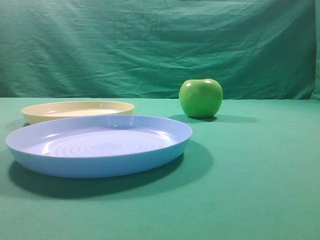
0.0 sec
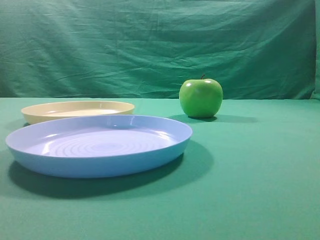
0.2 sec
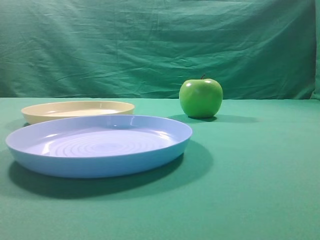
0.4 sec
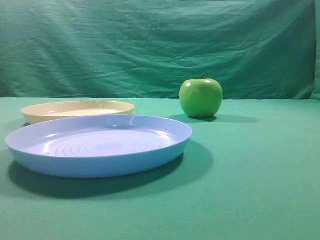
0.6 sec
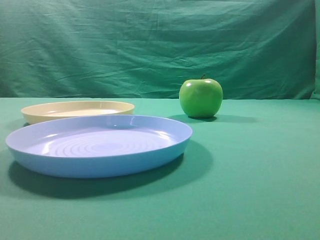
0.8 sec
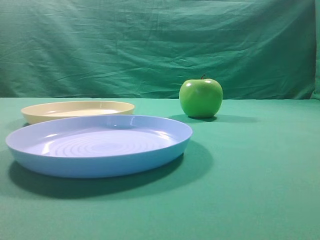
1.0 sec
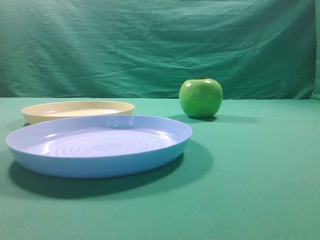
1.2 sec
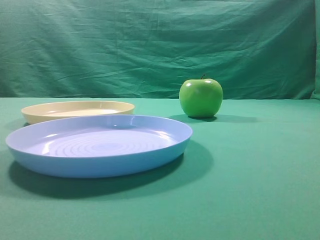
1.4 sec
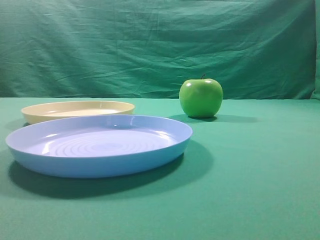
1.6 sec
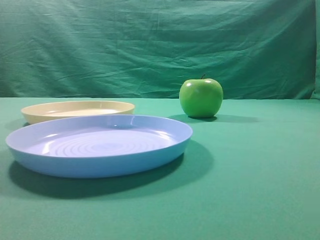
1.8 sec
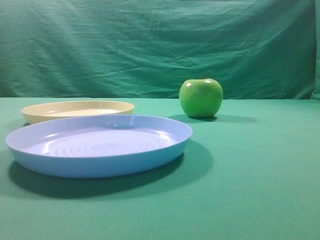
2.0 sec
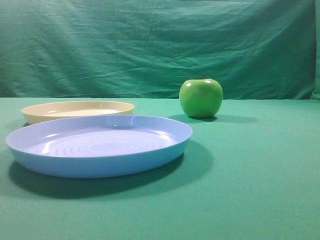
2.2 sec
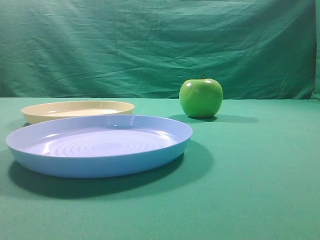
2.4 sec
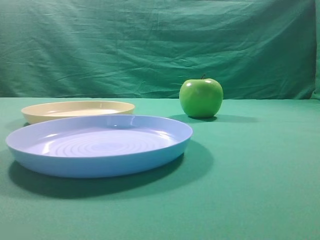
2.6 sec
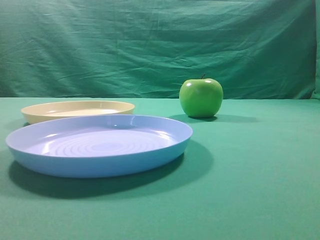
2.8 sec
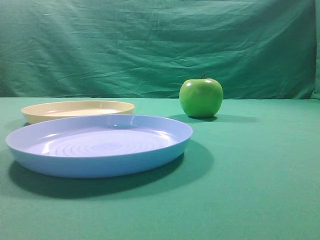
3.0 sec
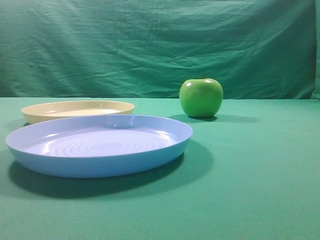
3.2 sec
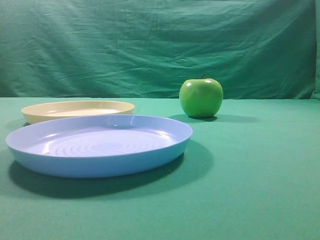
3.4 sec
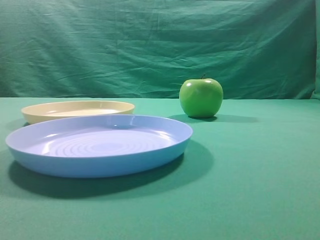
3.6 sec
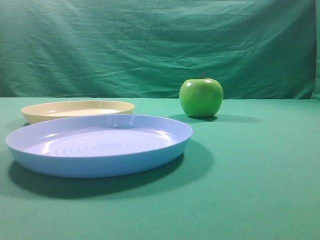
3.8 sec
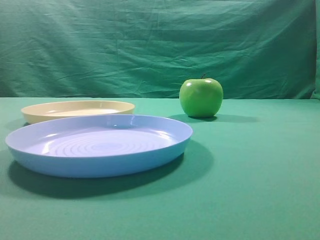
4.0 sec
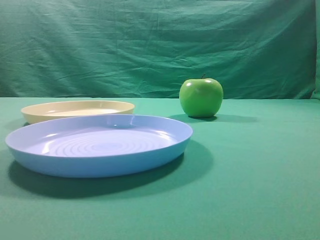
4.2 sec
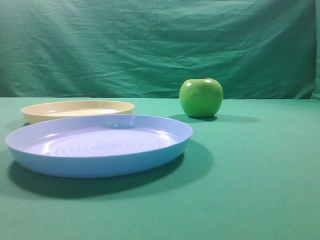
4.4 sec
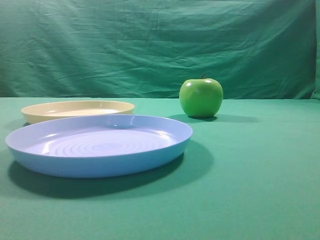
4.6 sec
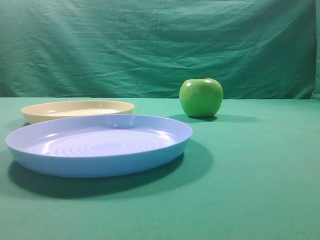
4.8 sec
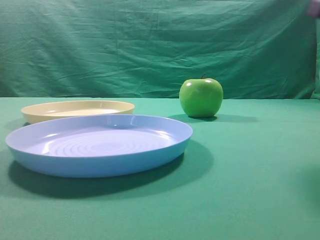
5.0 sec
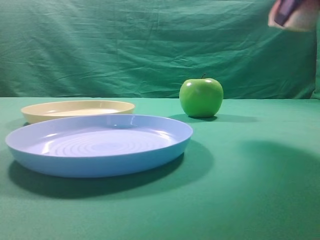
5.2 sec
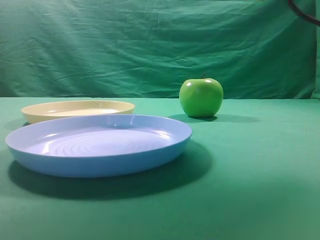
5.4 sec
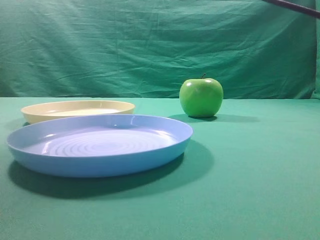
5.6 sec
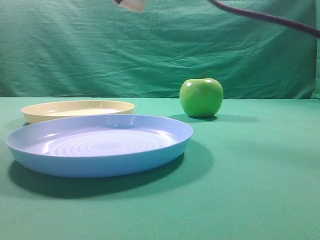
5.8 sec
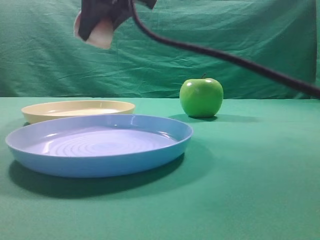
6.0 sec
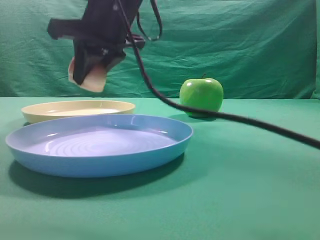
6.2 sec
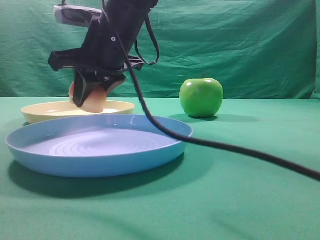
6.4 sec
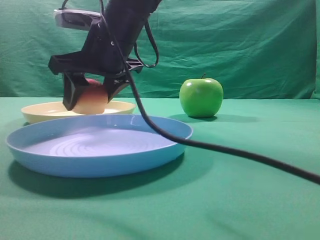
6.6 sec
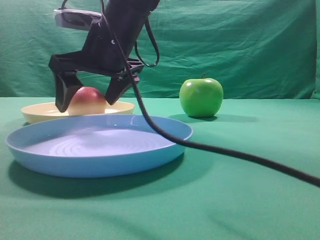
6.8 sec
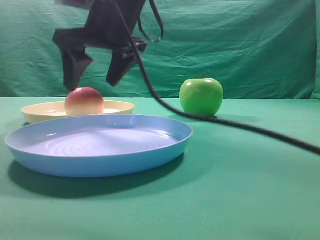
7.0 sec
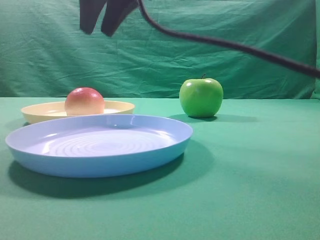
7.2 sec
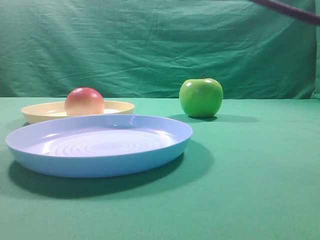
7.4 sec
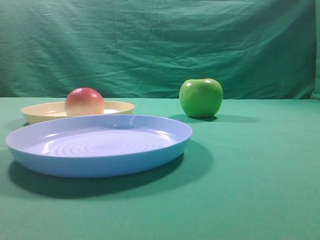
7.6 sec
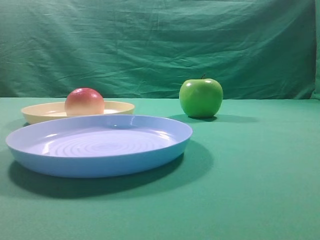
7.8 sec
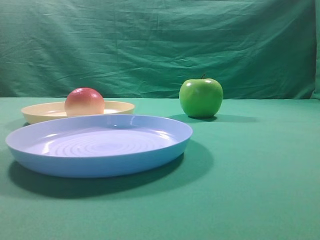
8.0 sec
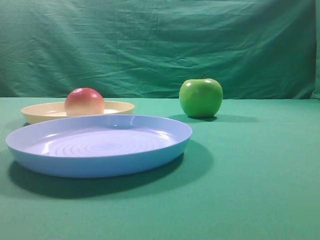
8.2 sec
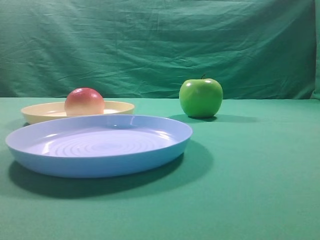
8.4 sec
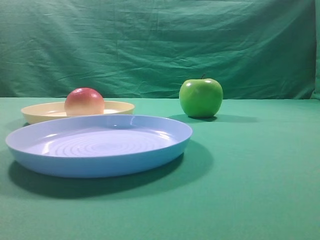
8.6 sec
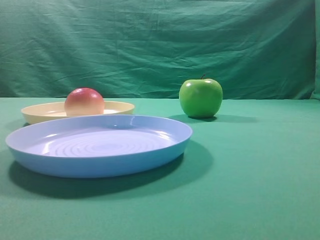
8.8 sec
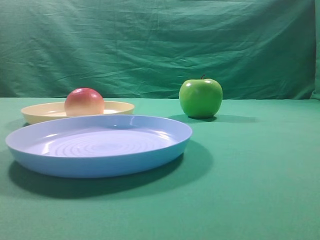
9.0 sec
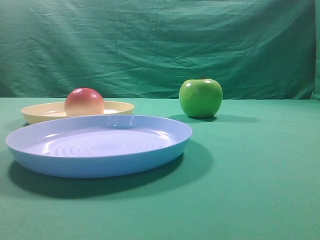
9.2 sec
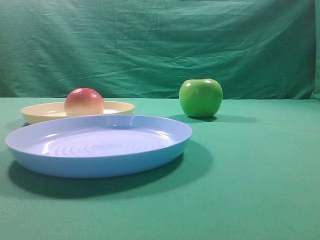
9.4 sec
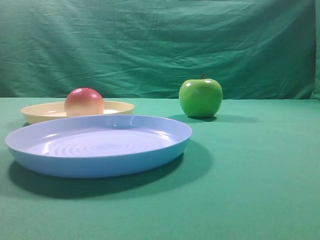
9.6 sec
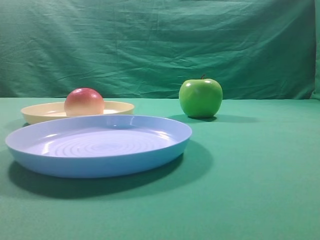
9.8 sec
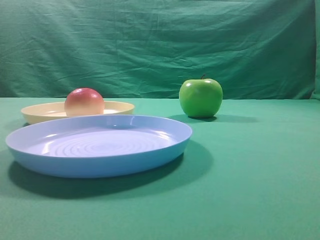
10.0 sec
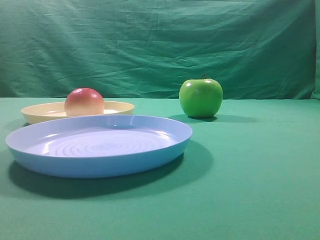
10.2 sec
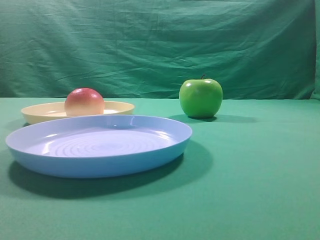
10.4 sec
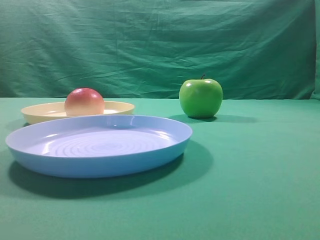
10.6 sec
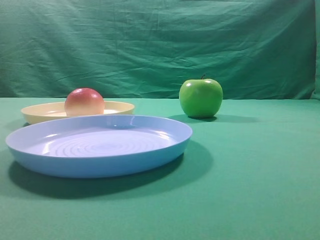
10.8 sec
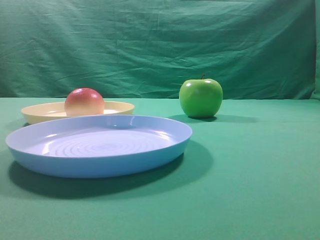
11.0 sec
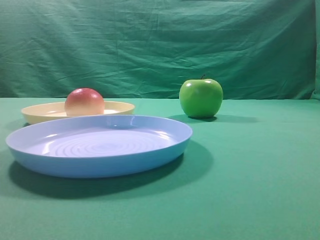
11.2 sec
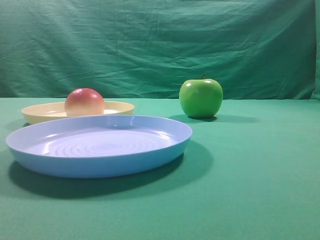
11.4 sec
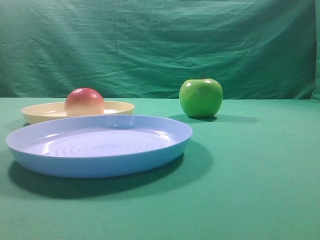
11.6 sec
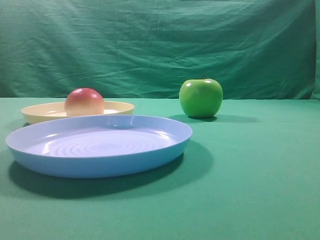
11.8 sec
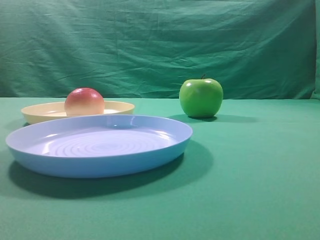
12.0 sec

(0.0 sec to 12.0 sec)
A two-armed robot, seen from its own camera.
Step, 5.2 sec - 7.0 sec: Place the picked object on the yellow plate.
